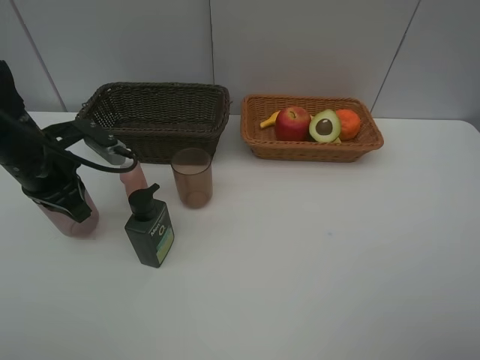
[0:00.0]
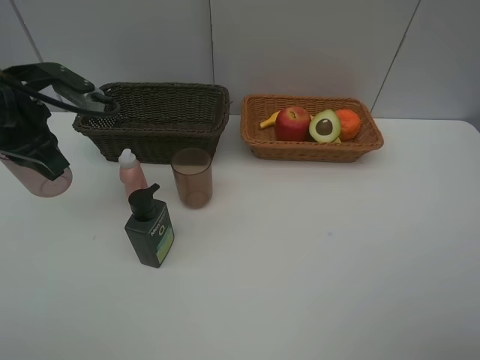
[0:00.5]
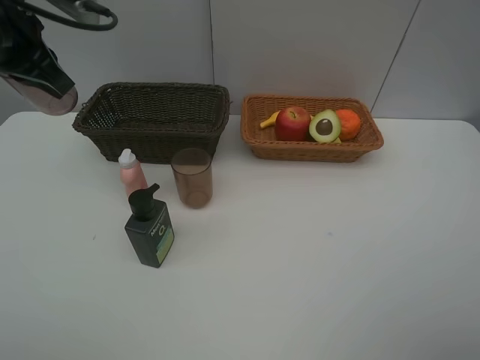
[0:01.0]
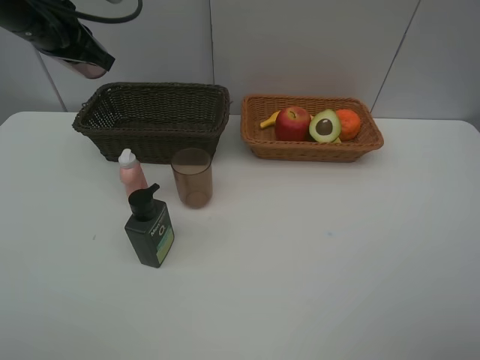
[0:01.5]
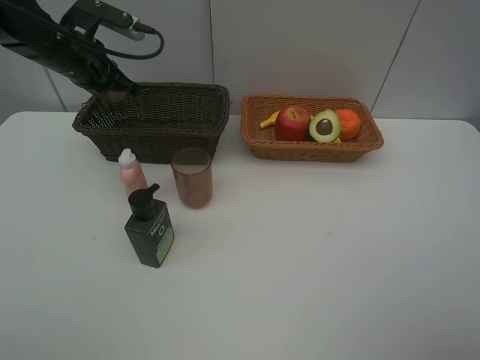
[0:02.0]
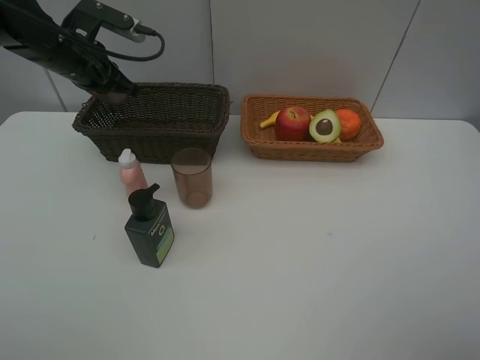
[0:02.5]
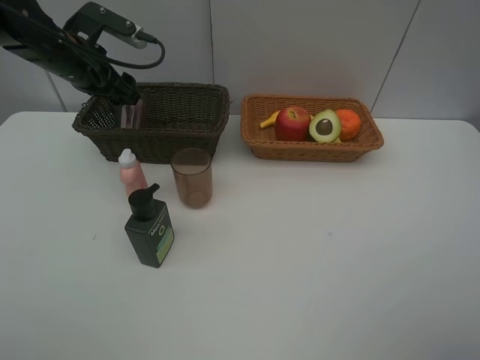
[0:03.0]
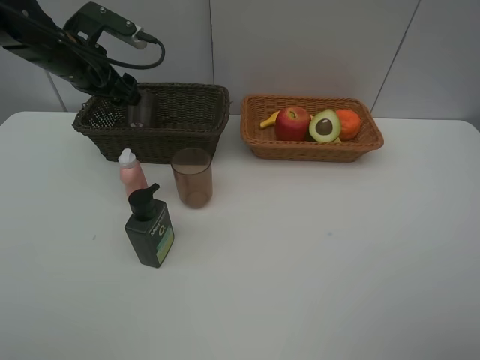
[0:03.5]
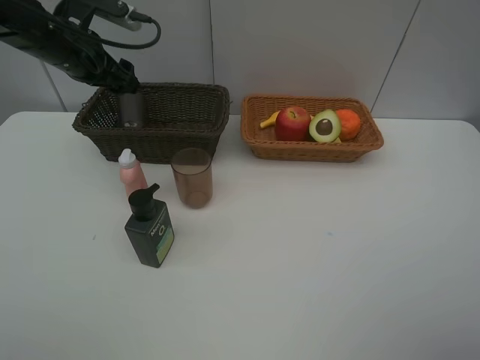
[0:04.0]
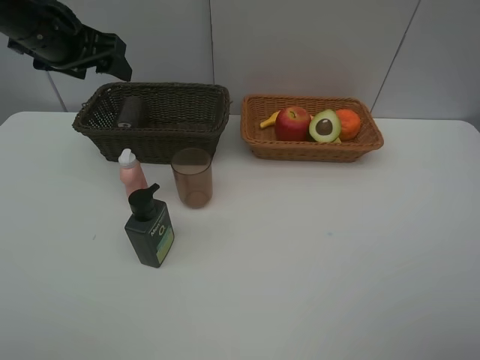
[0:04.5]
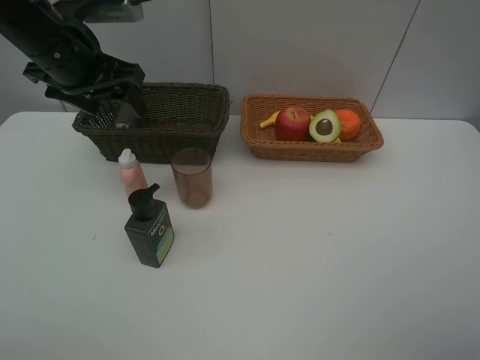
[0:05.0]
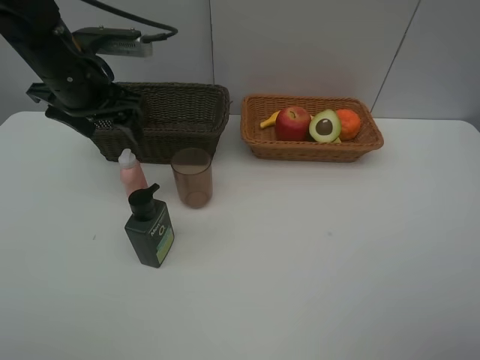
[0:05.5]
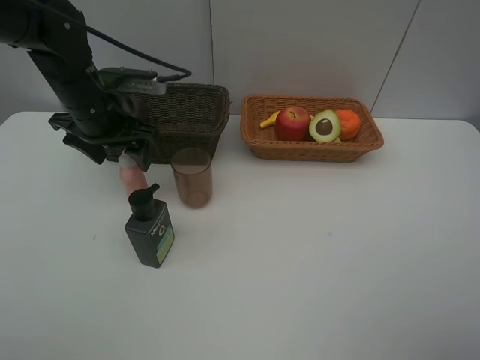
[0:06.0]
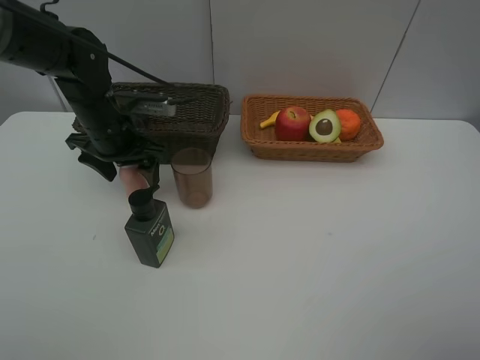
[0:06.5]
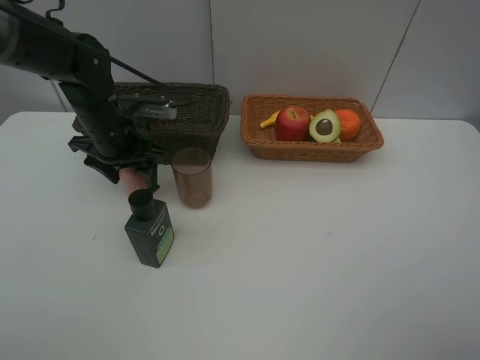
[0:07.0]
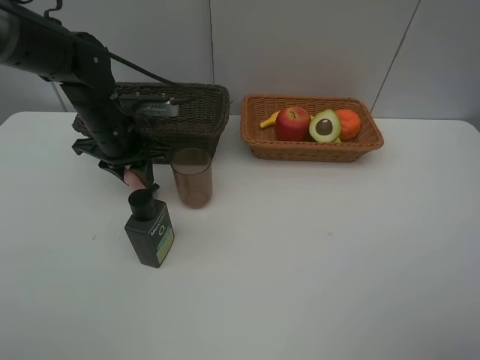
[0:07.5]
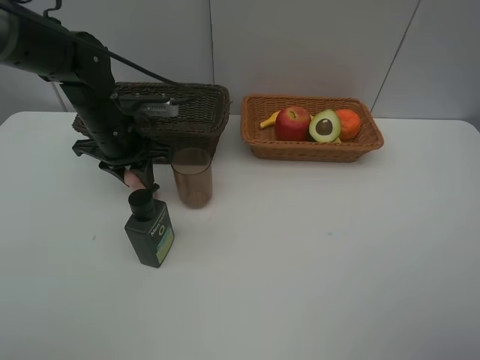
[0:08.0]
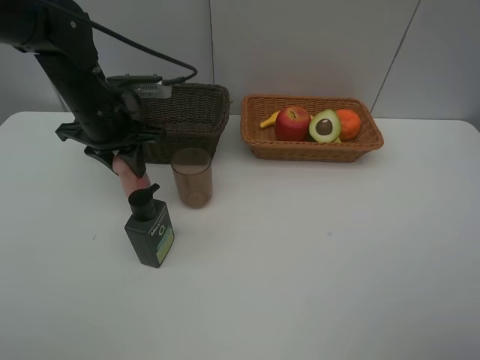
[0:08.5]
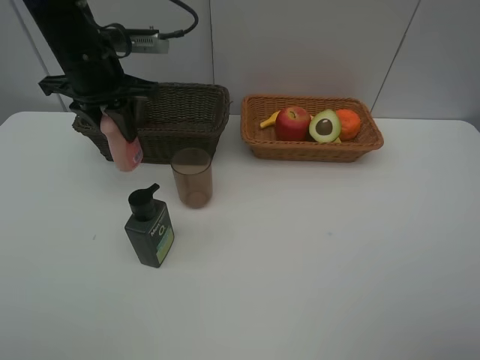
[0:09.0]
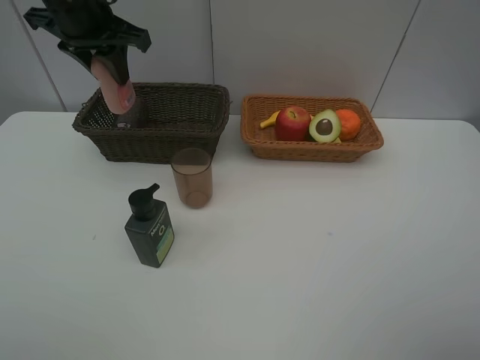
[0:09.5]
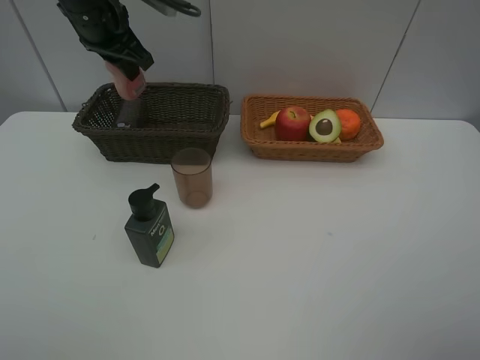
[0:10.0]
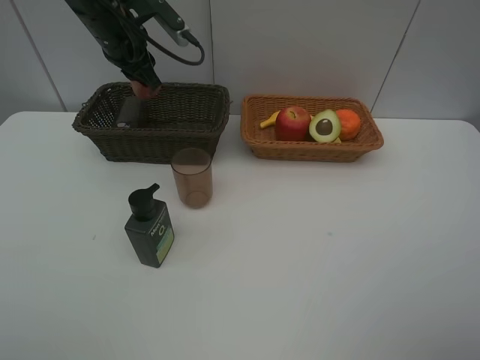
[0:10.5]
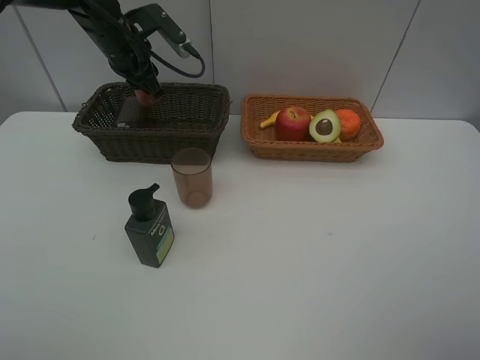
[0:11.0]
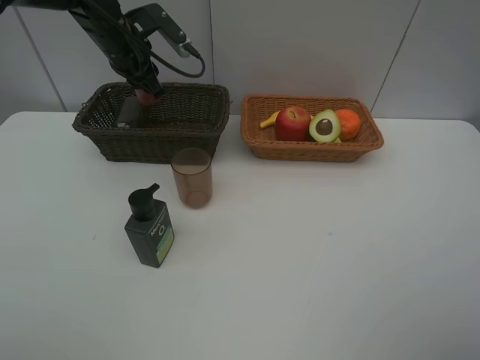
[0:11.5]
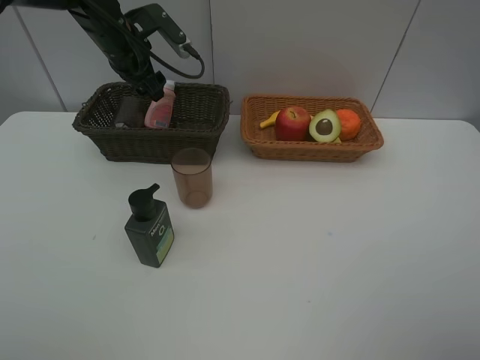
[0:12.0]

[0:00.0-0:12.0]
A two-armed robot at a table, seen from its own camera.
Task of the whole recording: Place multiple objects separately in different baskets.
Step, 0:00.5 to 0:03.5: Place the red cup in the dark basket with left gripper.
Step, 0:04.0 to 0:08.0: Pick up the laundry detergent with left gripper.
0:00.0 to 0:02.0: The left gripper heads forward and upward, covering approximately 15 cm.
0:02.0 to 0:04.0: The left gripper opens up.
0:04.0 to 0:06.0: The left gripper travels downward and backward by about 5 cm.
0:06.0 to 0:08.0: The left gripper closes.
0:08.0 to 0:10.0: The left gripper heads upward and forward, covering approximately 15 cm.
0:10.0 to 0:12.0: The left gripper heads downward, covering approximately 5 cm, and opens up.

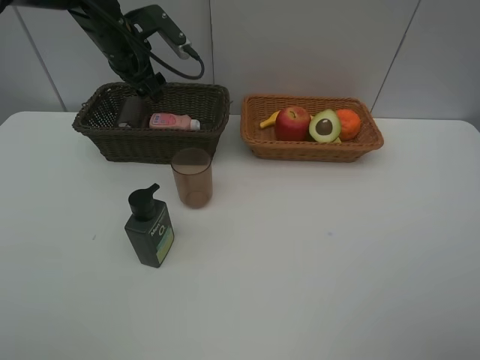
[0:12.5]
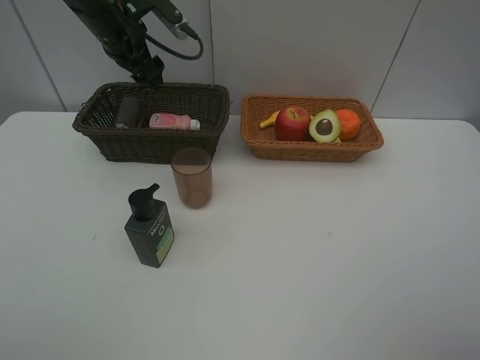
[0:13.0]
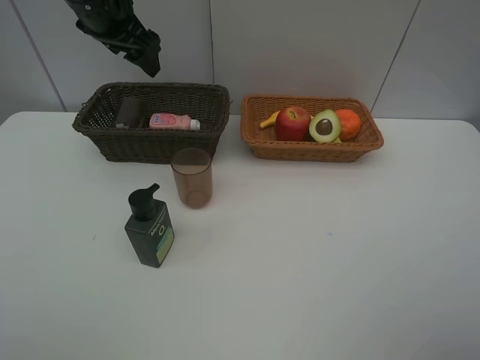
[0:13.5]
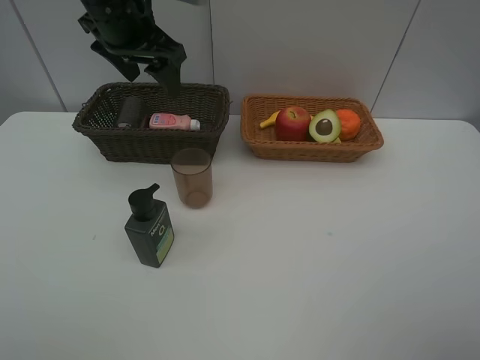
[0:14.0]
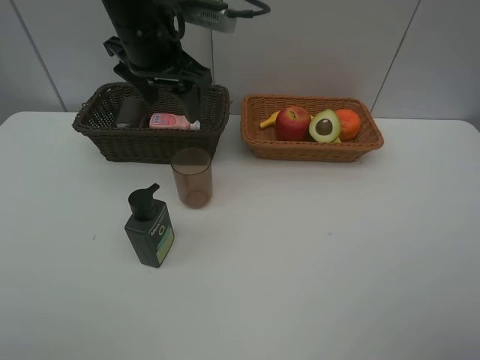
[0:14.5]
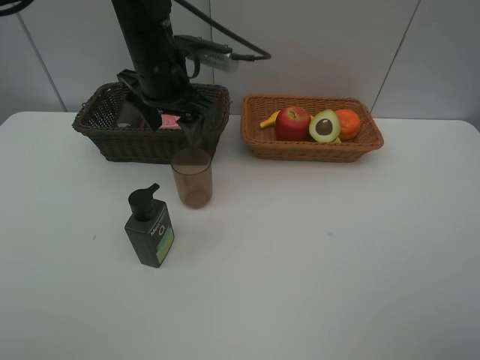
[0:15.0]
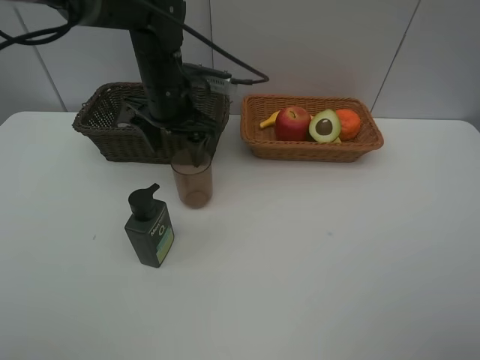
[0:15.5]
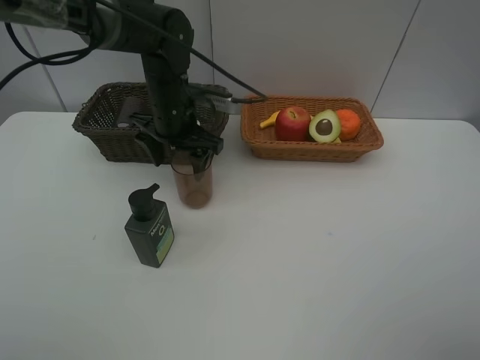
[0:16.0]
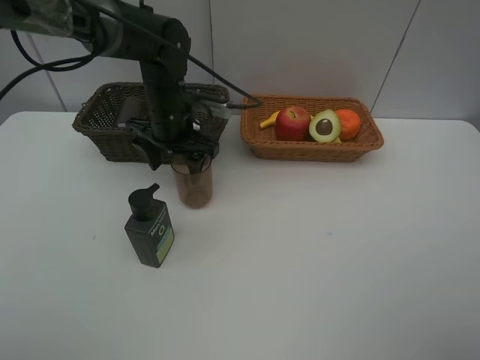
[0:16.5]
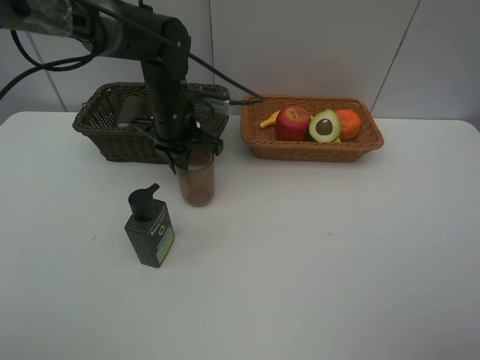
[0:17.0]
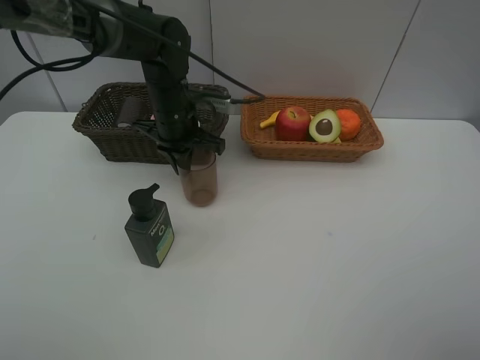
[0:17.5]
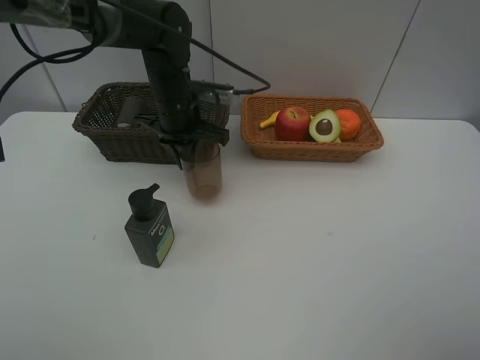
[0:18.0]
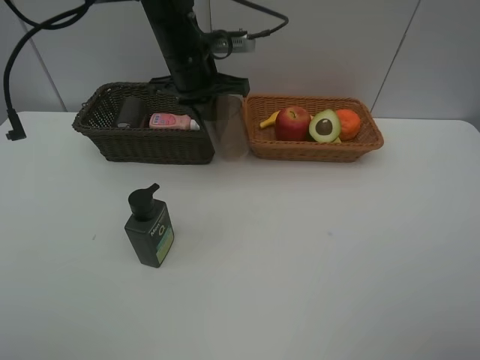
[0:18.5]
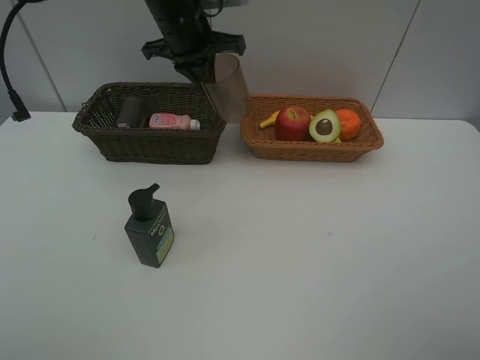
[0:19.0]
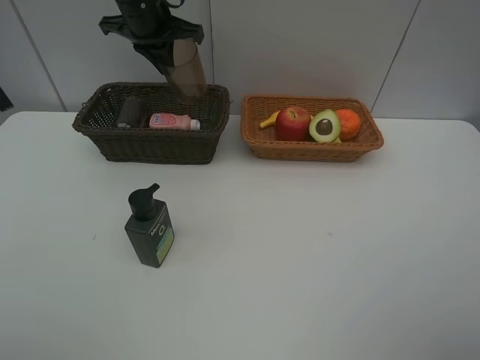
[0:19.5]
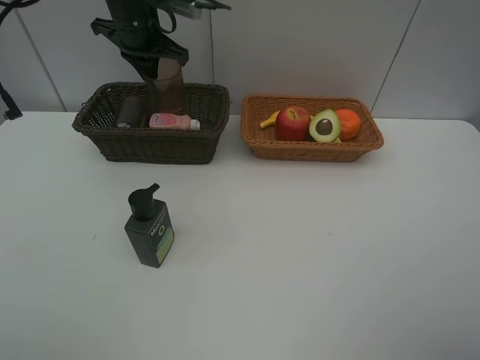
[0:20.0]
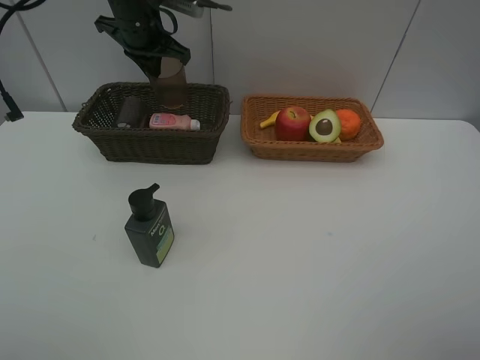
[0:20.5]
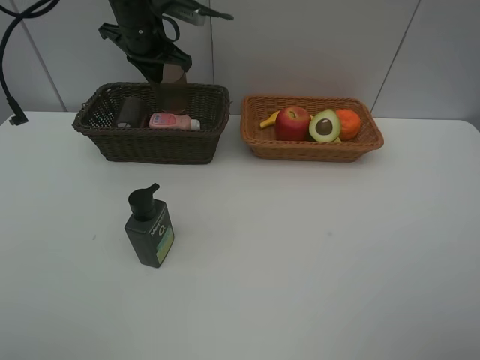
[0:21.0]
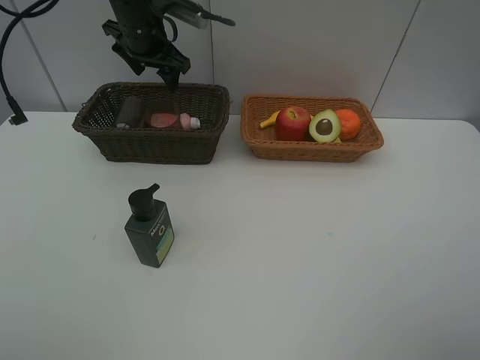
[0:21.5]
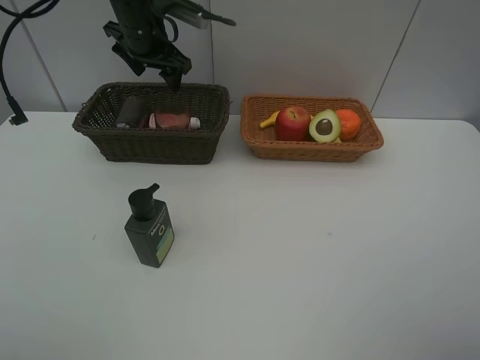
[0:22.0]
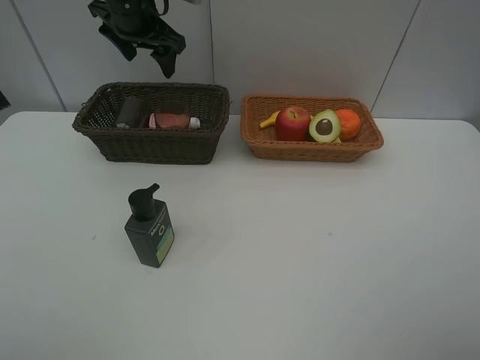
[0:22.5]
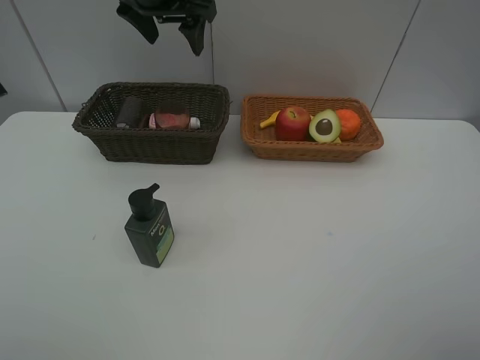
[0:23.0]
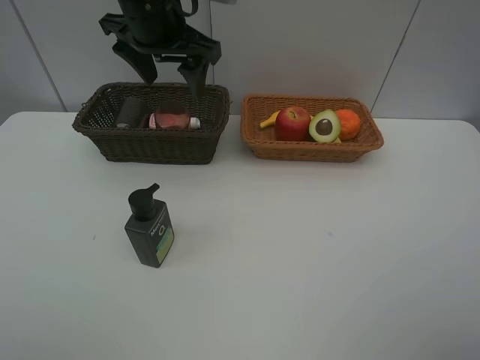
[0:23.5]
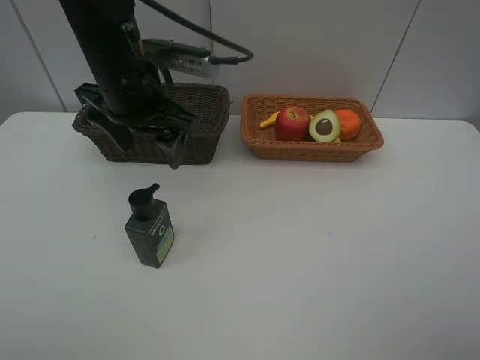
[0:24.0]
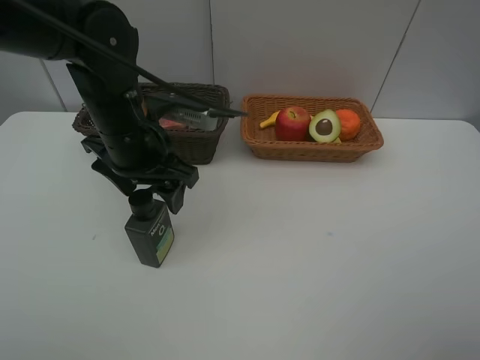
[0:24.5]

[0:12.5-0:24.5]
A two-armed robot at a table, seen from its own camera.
Task of the whole recording: Place multiple objects separately in different baskets.
Step, 0:13.0 to 0:18.0: Pick up the light brown cup with left gripper.
Step, 0:18.5 to 0:21.5: Place the light brown cup in the dark basket with left gripper.
0:12.5 to 0:14.5: The left gripper travels backward, to the right and upward by about 15 cm.
0:14.5 to 0:16.5: The left gripper shifts roughly 15 cm downward.
0:16.5 to 0:18.5: The left gripper goes some 10 cm upward, and closes its fingers.
0:18.5 to 0:20.5: The left gripper travels to the left and forward by some 10 cm.
0:20.5 to 0:22.5: The left gripper opens up.
0:22.5 to 0:24.5: The left gripper travels backward and downward by approximately 20 cm.

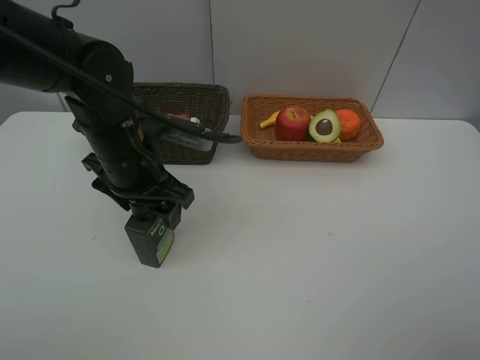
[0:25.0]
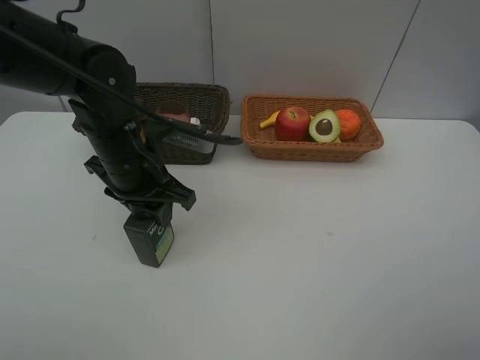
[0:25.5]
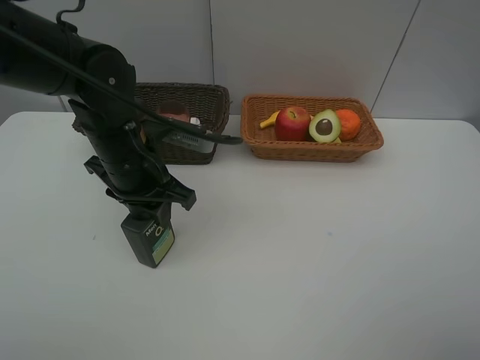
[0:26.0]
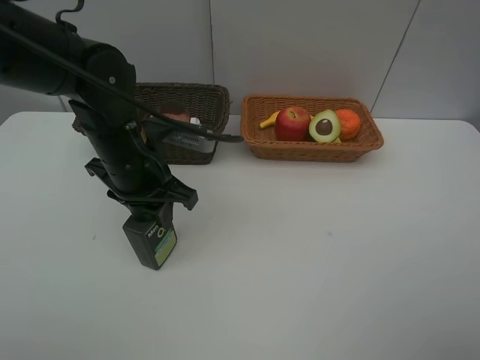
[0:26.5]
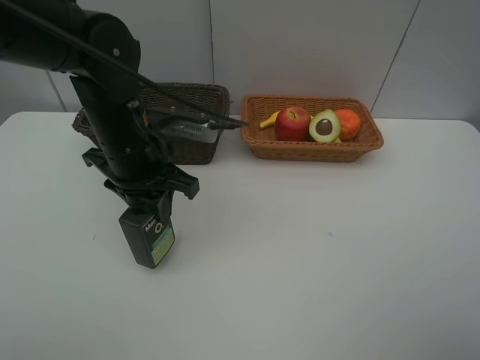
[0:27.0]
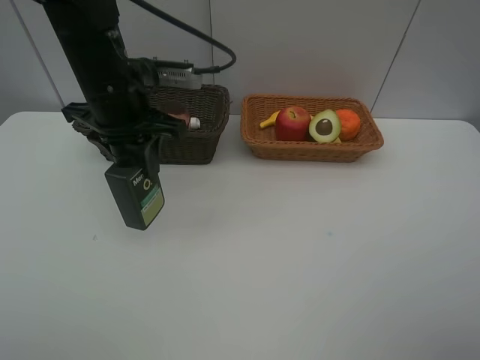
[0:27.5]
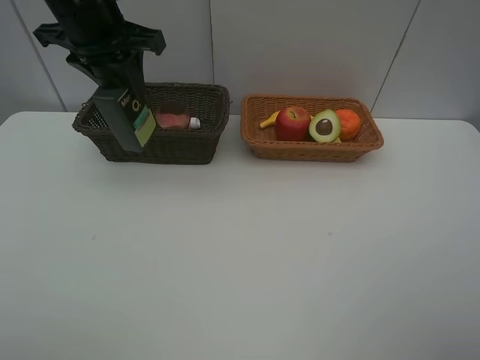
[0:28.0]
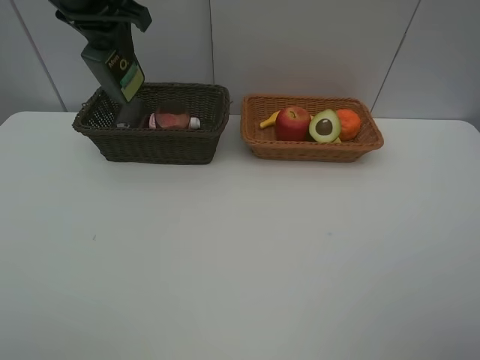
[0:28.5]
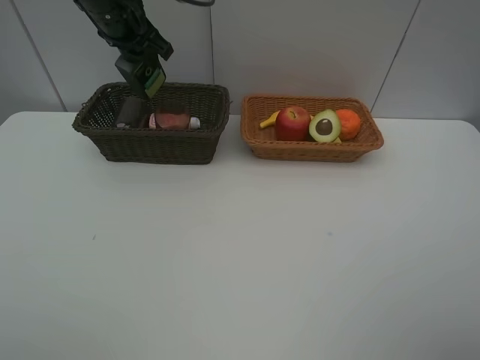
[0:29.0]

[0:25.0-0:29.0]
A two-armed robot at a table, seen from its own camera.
Task of the whole recording: Place multiple objects separately in different baskets.
Step, 0:25.0 to 0:27.0: Pick up the hard facial cleanser with left gripper.
0:25.0 to 0:27.0: The left gripper closes.
0:27.0 to 0:29.0: The left gripper goes approximately 20 cm forward and upward.
